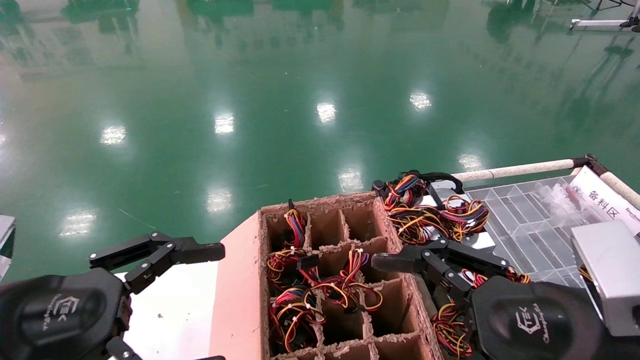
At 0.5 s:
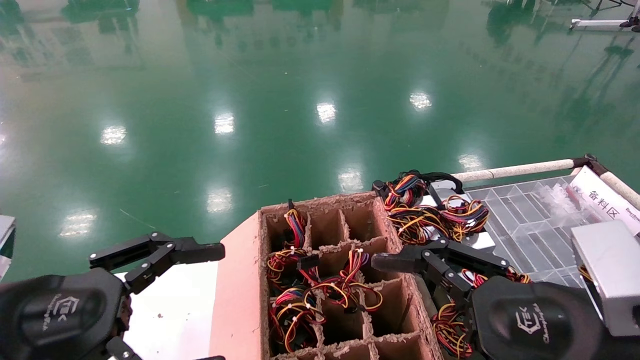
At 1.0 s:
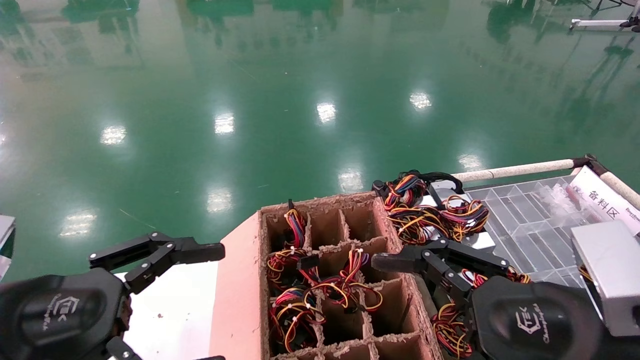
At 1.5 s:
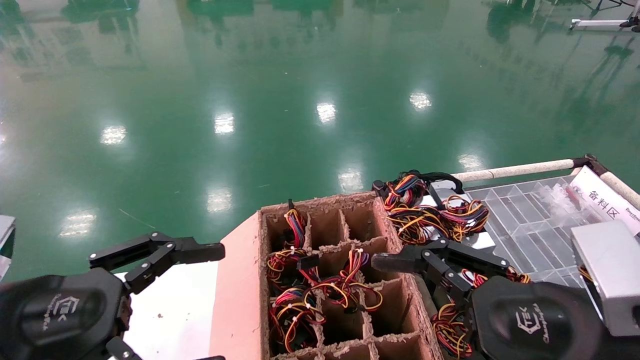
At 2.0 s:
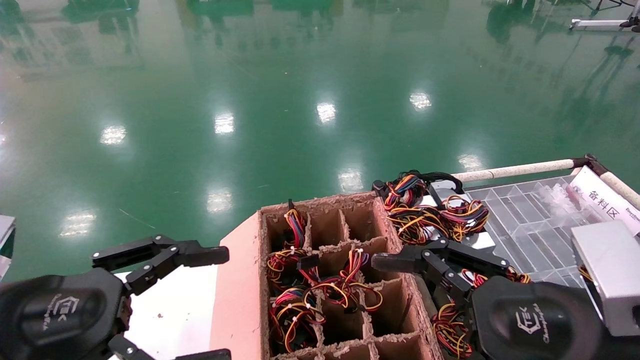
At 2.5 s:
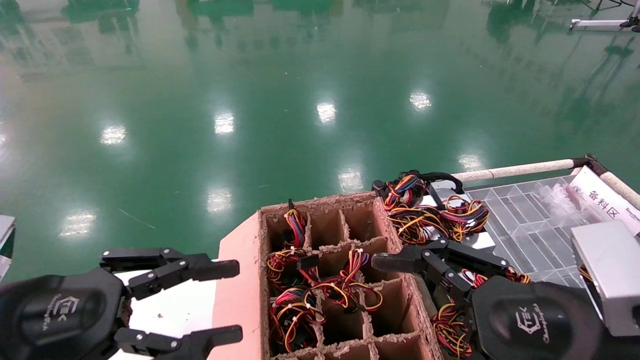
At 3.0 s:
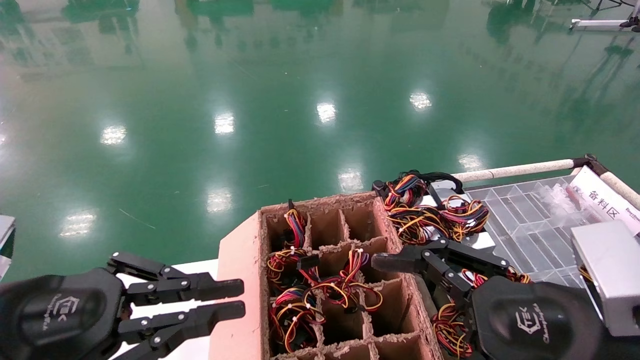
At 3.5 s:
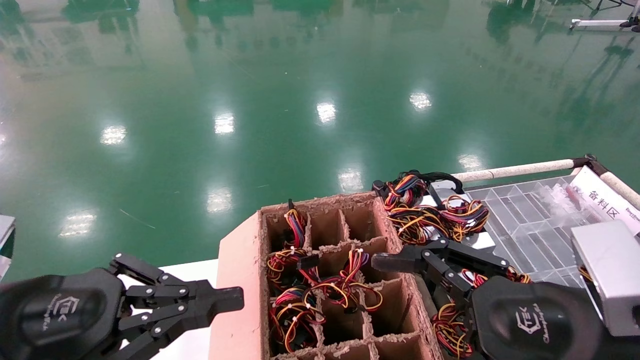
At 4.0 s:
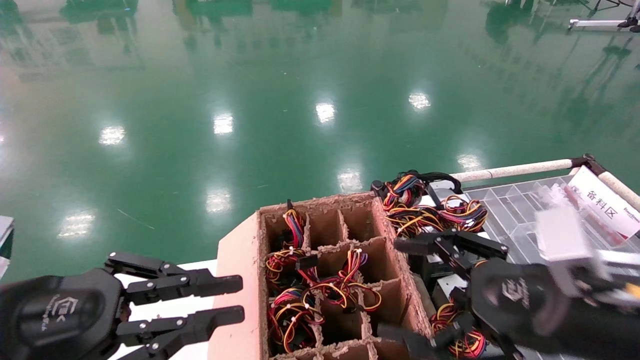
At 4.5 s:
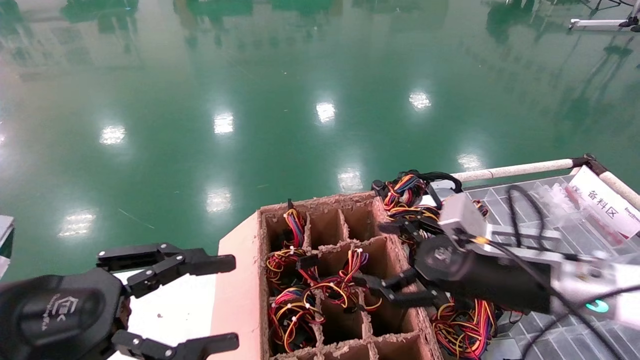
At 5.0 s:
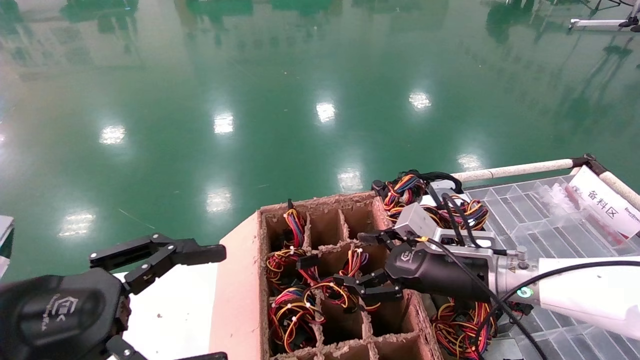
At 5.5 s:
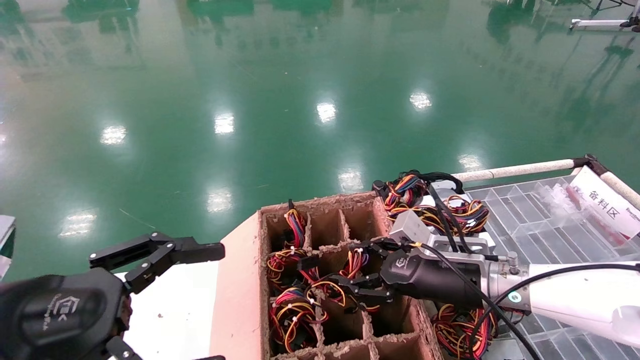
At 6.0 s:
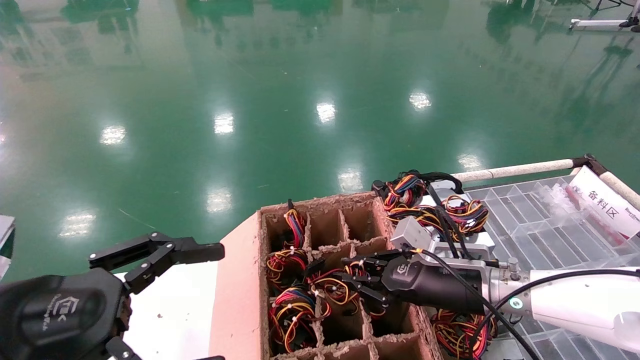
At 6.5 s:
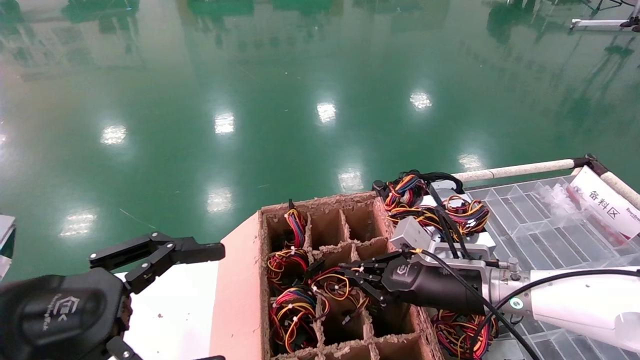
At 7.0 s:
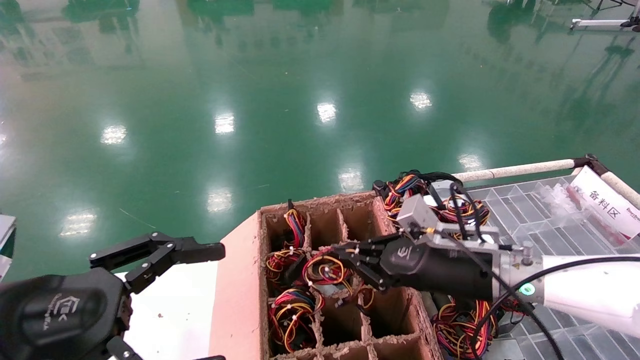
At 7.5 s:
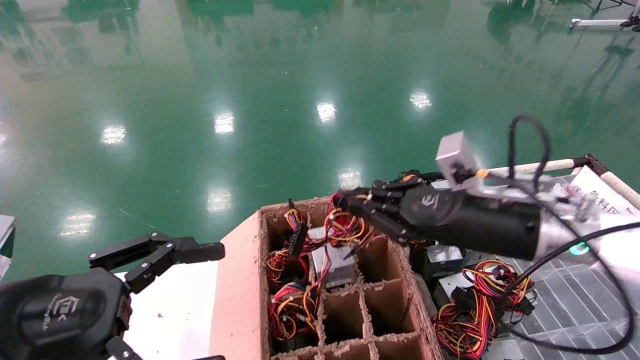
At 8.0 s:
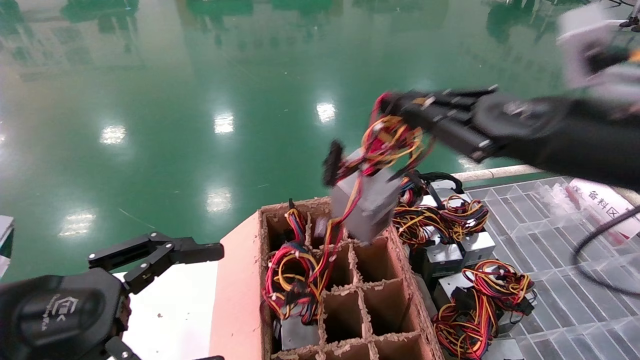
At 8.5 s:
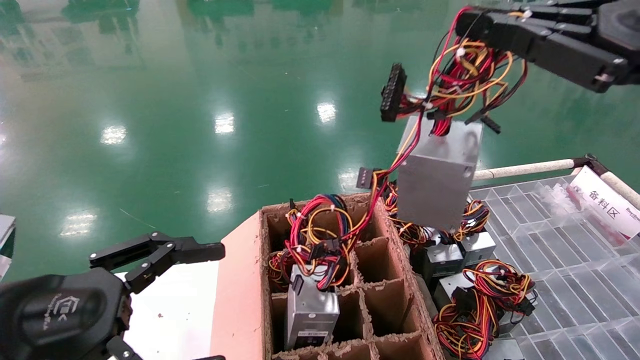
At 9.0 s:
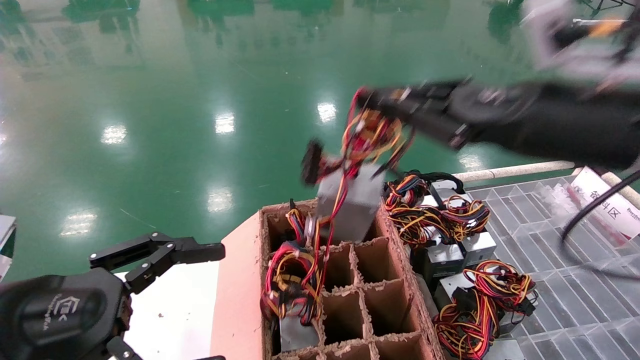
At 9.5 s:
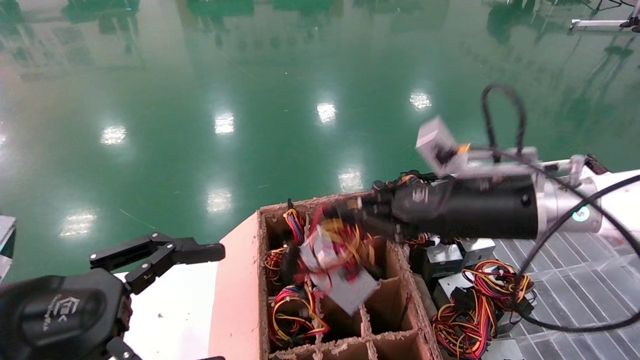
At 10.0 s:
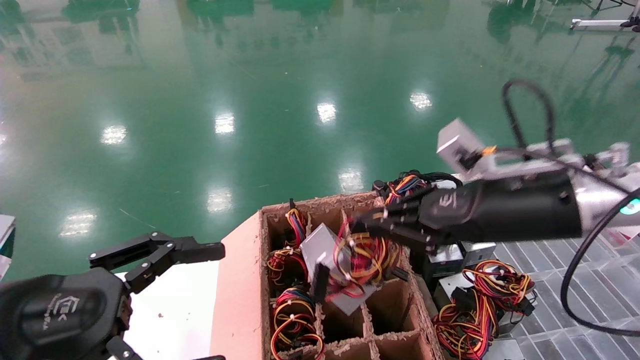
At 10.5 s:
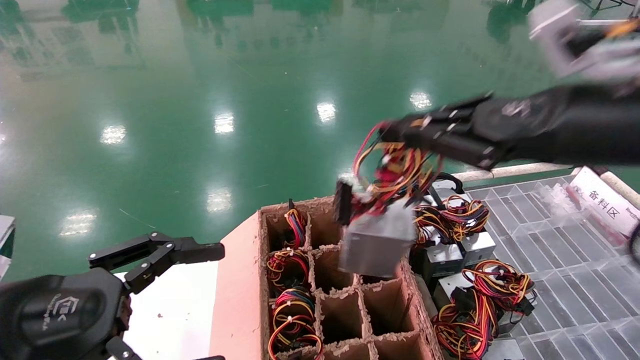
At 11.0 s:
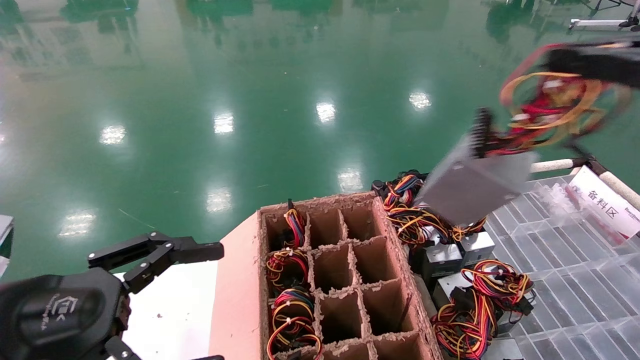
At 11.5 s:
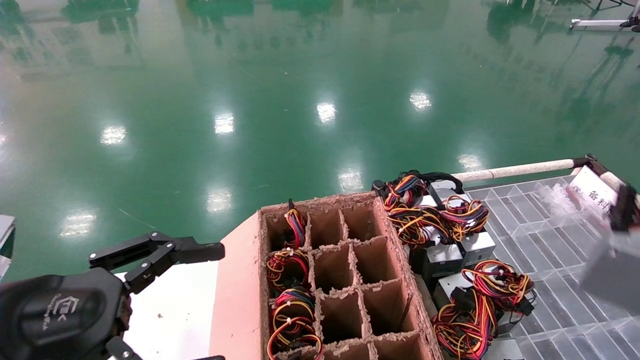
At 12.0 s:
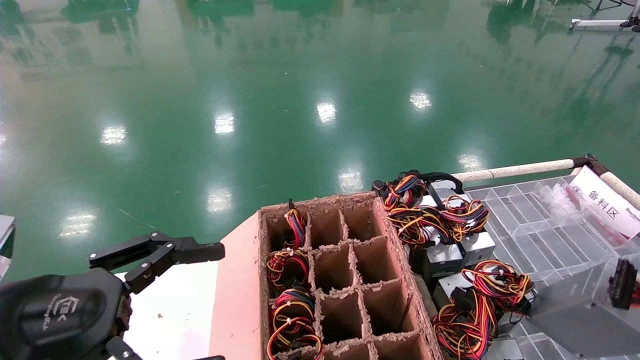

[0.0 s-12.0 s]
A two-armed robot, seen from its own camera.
Step, 3.5 to 6.0 s: Grab and lift the power supply from the large box.
0.0 to 2.0 s: The two grippers keep their place.
2.0 to 4.0 s: The left gripper closes up.
4.0 to 6.0 s: The right gripper travels forward and downward by some 20 cm, and closes, while the left gripper opens its fingers.
6.0 to 8.0 s: The right gripper goes some 25 cm upward and backward.
10.0 to 12.0 s: The right gripper moves to the right and backward, some 35 cm.

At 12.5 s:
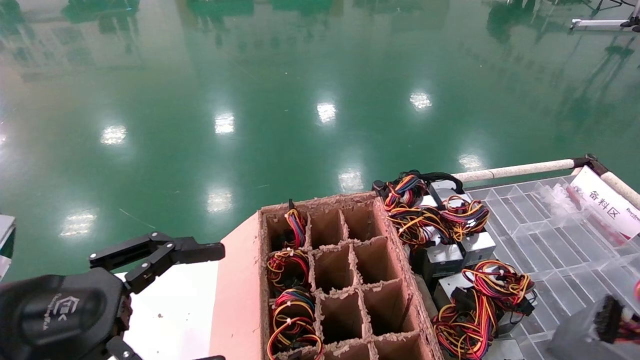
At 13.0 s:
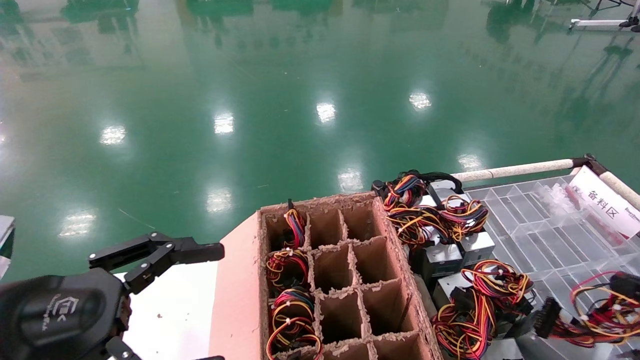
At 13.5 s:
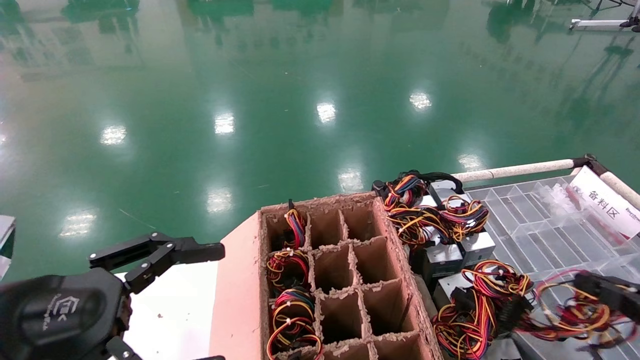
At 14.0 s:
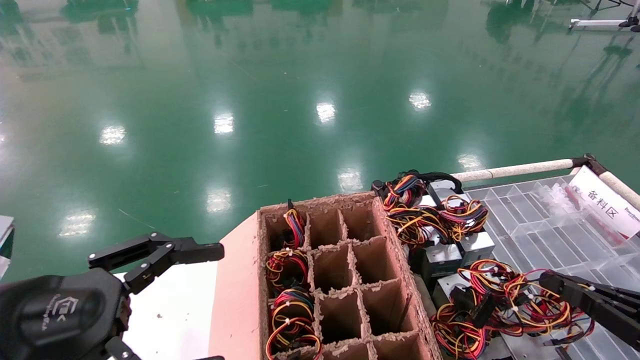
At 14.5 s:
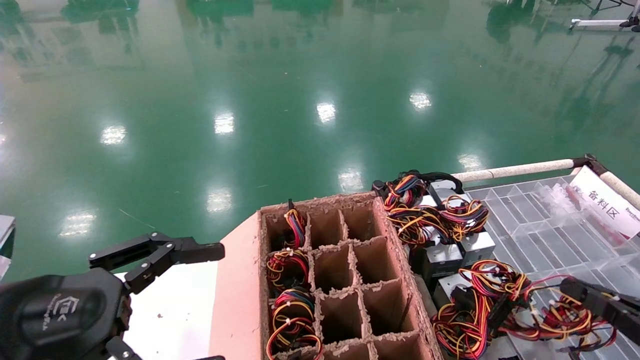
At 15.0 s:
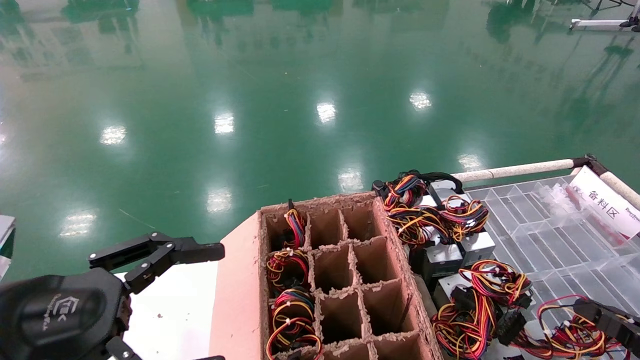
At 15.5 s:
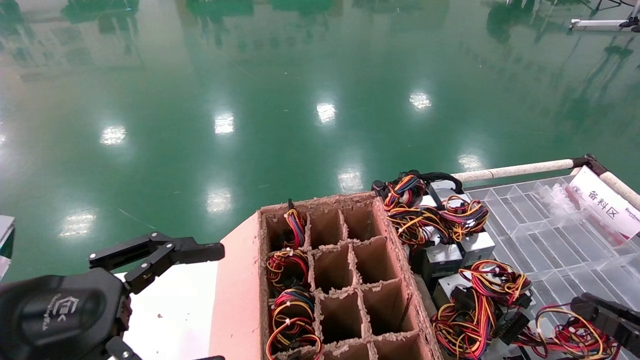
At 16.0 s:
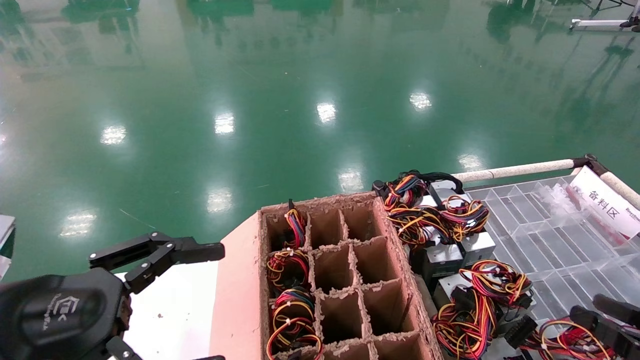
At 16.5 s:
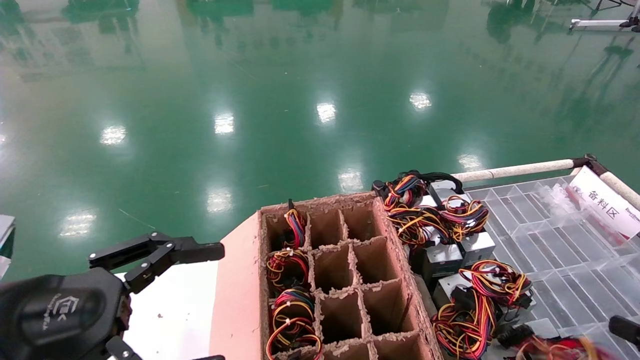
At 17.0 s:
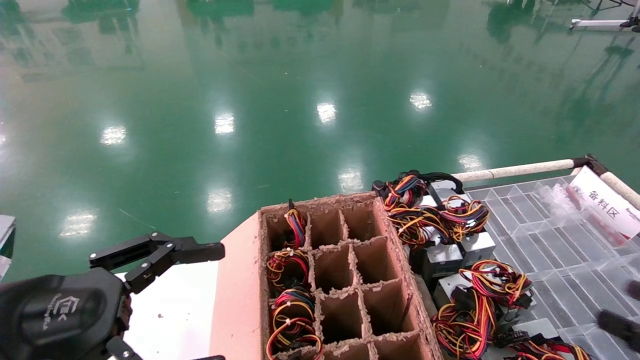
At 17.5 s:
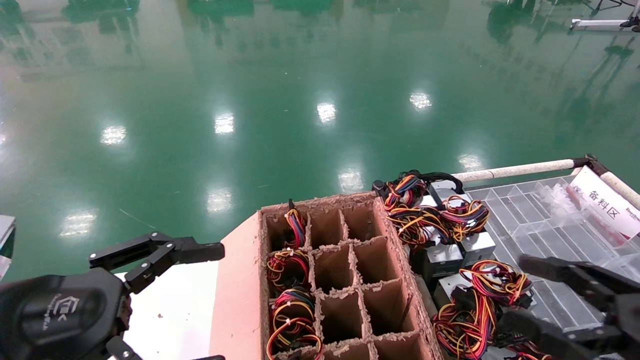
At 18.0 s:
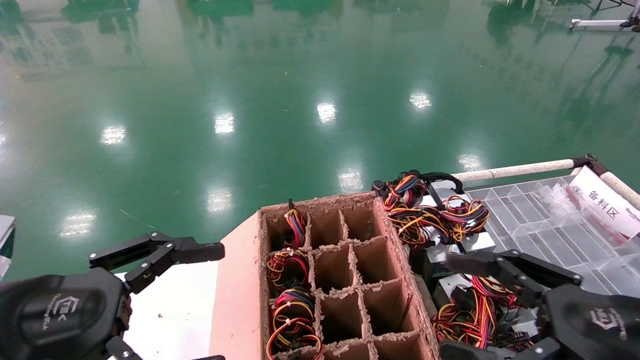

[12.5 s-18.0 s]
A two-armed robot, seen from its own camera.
Step, 12.5 to 15.5 s: Place the power supply on the operating table.
12.5 to 14.5 s: The right gripper heads downward, forward and to the left, covering roughly 15 cm.
14.5 to 16.0 s: The right gripper opens.
16.0 to 18.0 s: The right gripper travels to the left and upward by roughly 20 cm, and opens its fingers.

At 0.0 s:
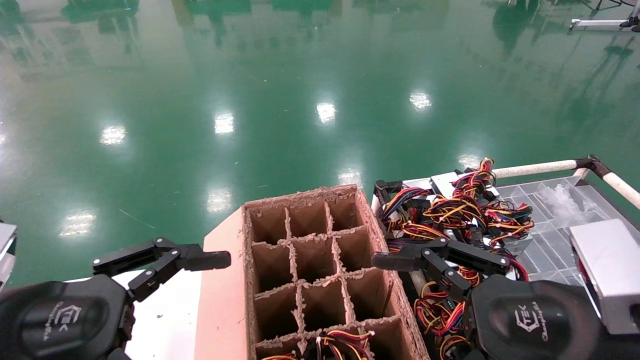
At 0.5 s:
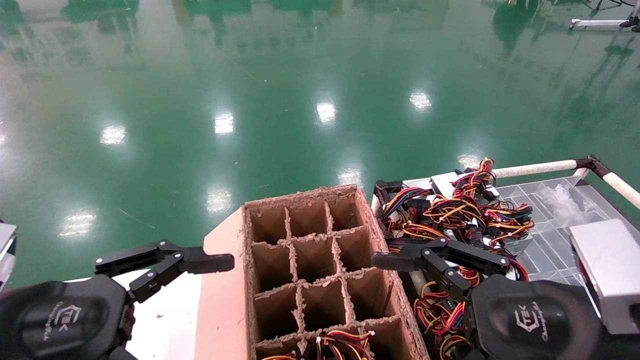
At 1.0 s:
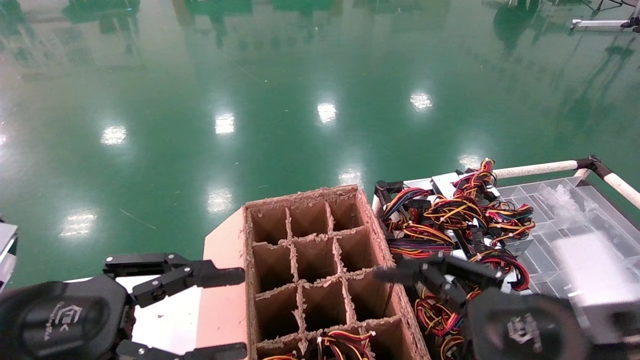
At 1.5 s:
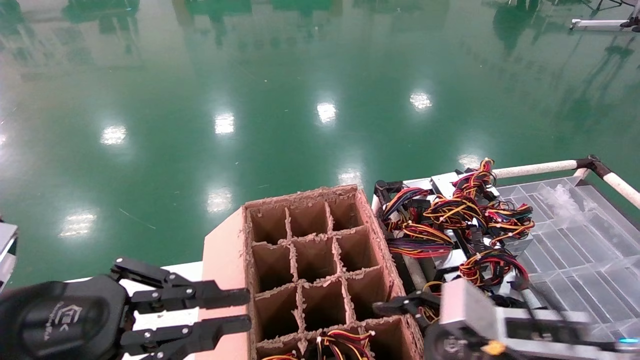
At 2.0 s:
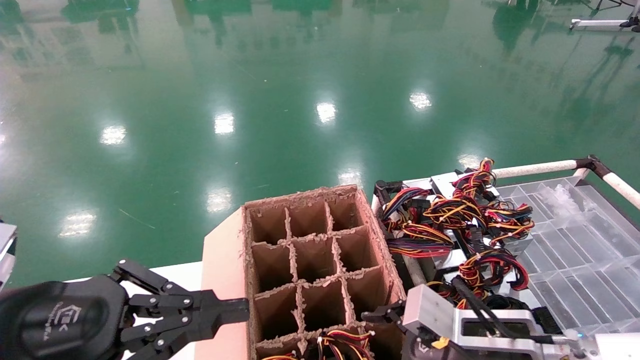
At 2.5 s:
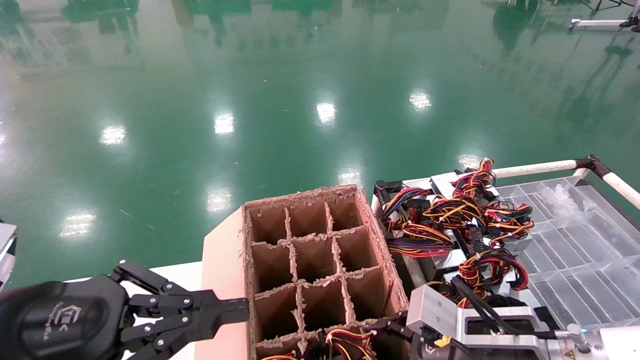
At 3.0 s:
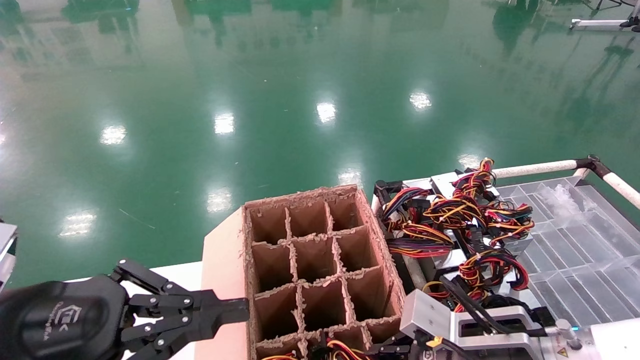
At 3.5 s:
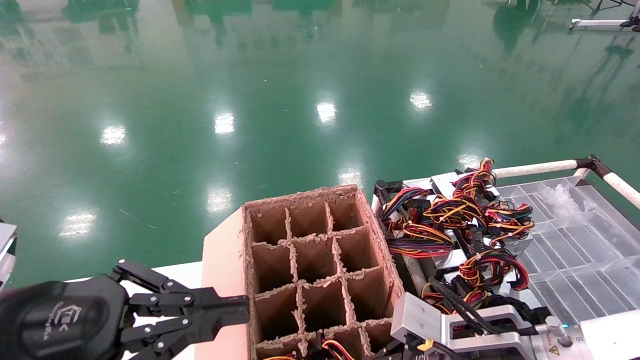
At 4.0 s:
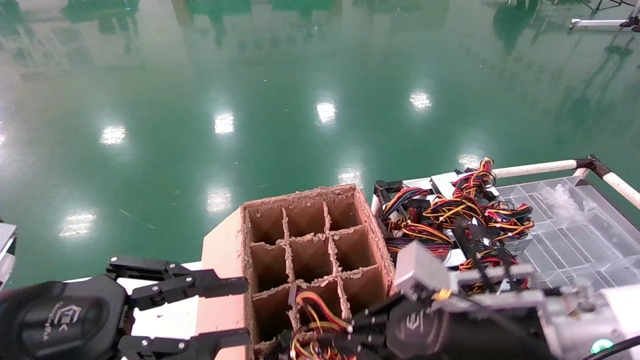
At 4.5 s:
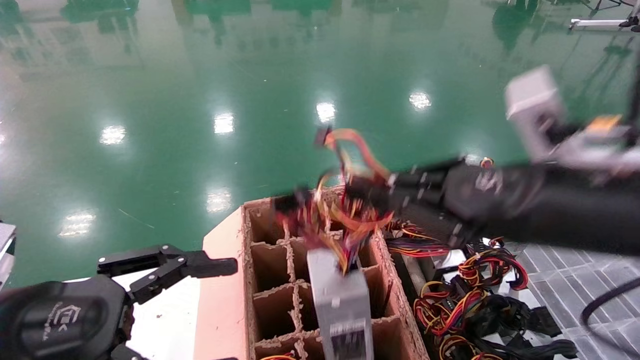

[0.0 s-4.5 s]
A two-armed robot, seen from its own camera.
Step, 2.0 to 3.5 s: Grab and lift the power supply from the large box.
0.0 to 2.0 s: The left gripper closes its fingers. Meanwhile the right gripper shifts roughly 15 cm downward and forward.
2.0 to 4.5 s: The right gripper travels upward by some 20 cm, and closes its fingers, while the left gripper opens.
